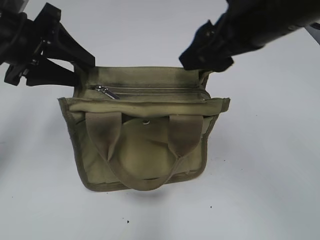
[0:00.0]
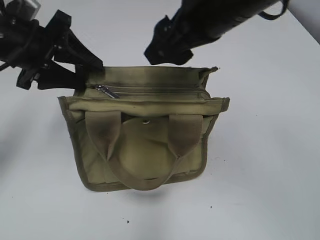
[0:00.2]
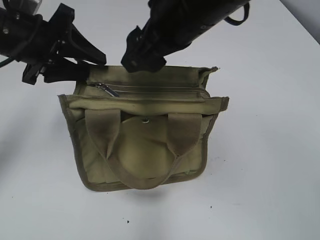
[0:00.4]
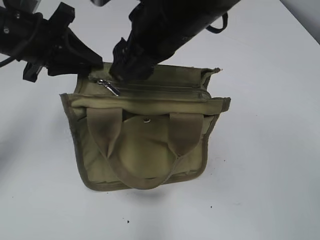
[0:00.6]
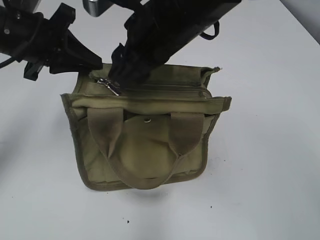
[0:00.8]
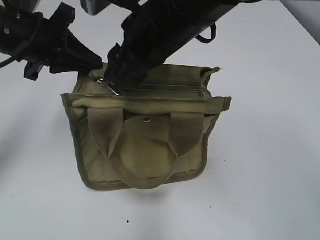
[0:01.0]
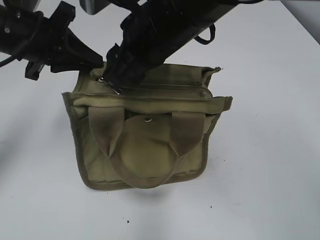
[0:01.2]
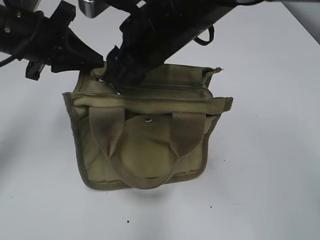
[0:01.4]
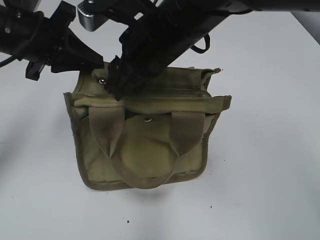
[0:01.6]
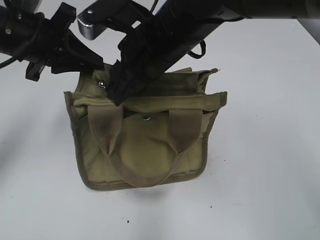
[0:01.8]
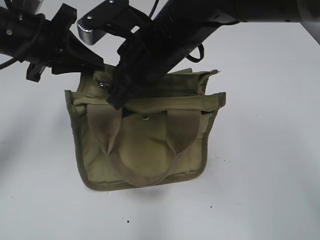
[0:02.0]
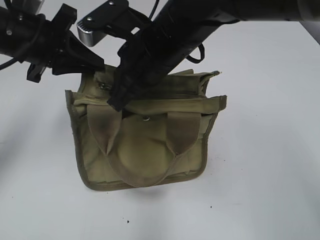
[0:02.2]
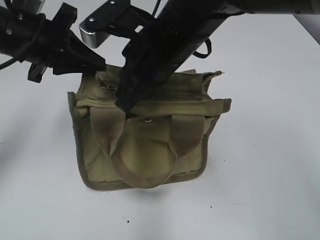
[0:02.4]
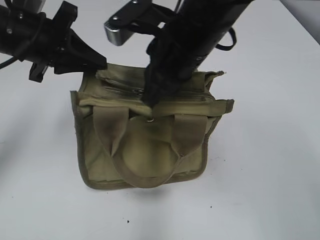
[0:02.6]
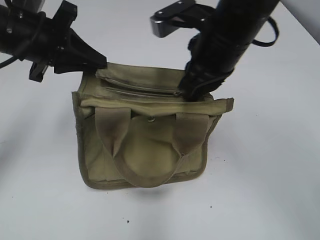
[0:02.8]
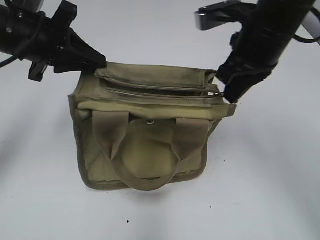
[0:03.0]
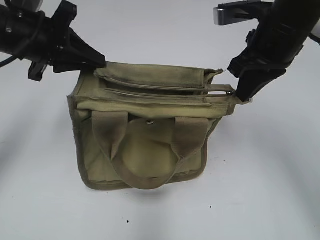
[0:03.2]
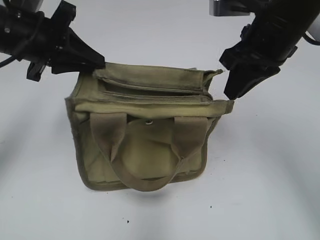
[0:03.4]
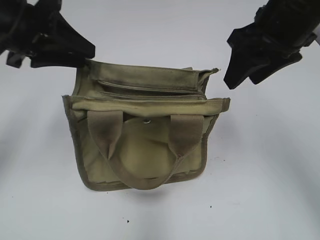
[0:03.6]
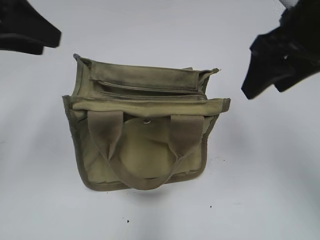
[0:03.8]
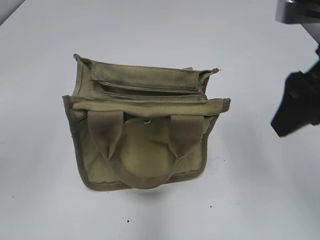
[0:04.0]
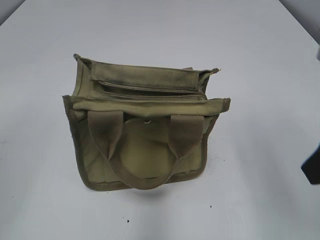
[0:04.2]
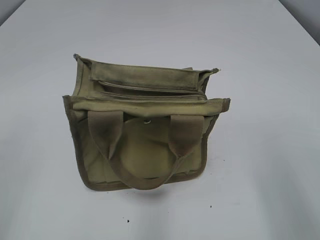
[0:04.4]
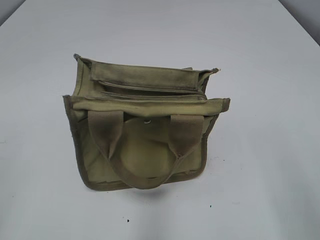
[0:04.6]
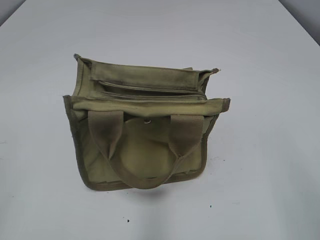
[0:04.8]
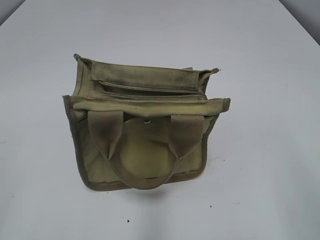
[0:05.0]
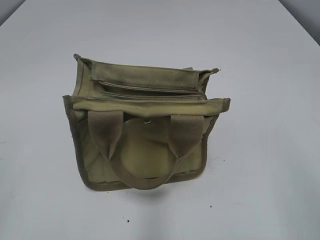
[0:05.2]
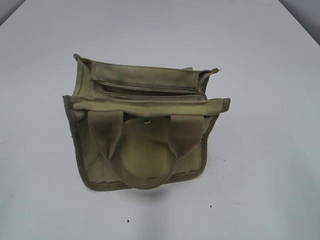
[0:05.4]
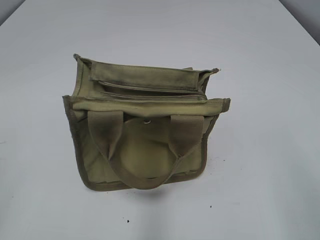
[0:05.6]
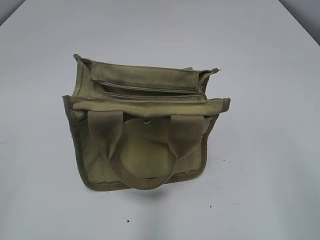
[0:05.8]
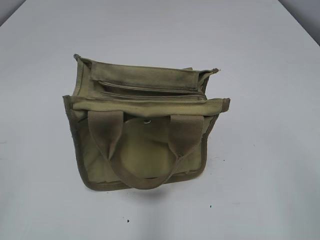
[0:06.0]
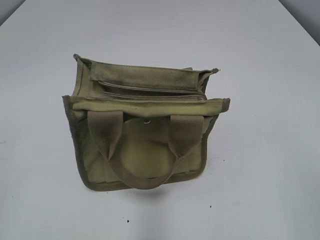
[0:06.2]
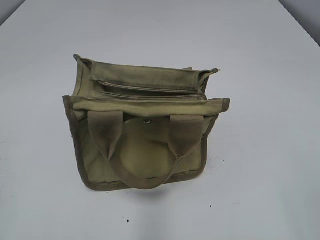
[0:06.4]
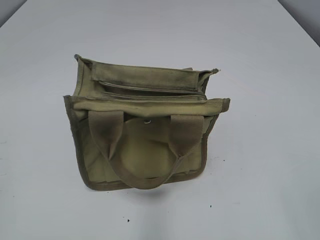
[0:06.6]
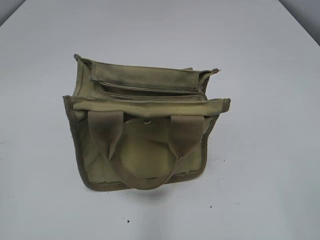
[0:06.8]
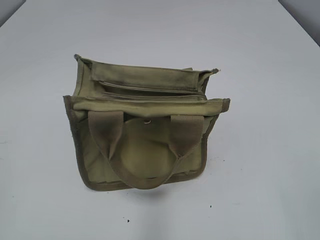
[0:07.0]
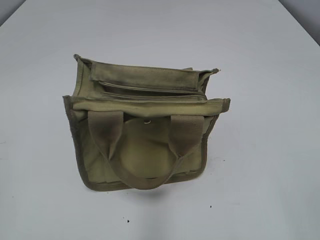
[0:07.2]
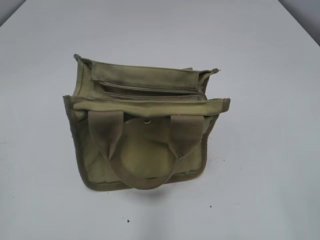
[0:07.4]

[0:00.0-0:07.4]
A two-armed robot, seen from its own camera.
Step, 0:00.0 to 0:03.2: Pull open the zipper with your right hand.
Step, 0:03.4 to 0:03.6: Hold the bag with your left hand.
0:00.0 to 0:01.4: The left gripper closes its fingers. The right gripper goes about 10 cm to the left.
0:01.4 to 0:03.0: The right gripper shifts some 10 cm to the right, and closes its fingers.
0:03.0 to 0:04.4: The right gripper heads backward and to the right, covering approximately 20 cm, and opens its fingers; the left gripper is displaced backward and to the left by approximately 25 cm, and opens up.
